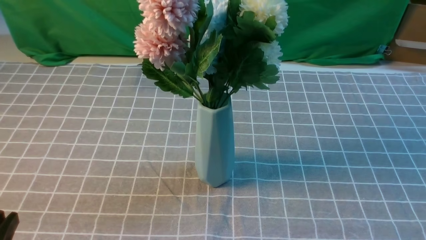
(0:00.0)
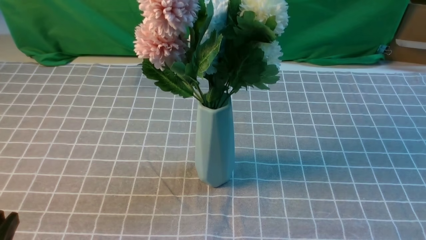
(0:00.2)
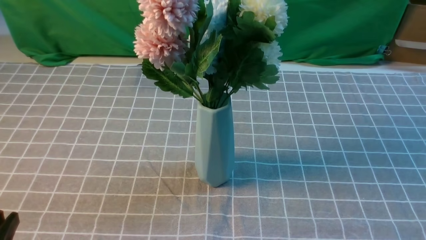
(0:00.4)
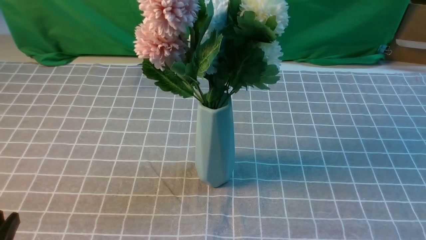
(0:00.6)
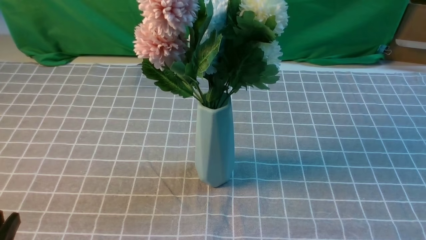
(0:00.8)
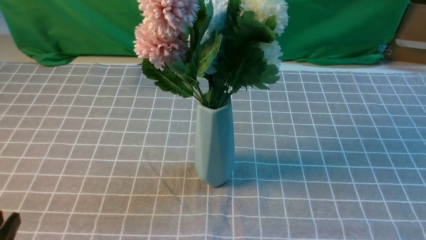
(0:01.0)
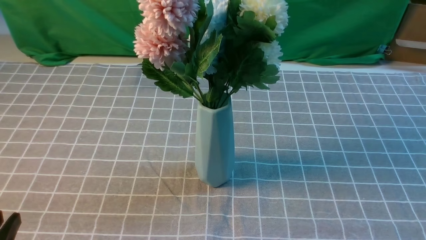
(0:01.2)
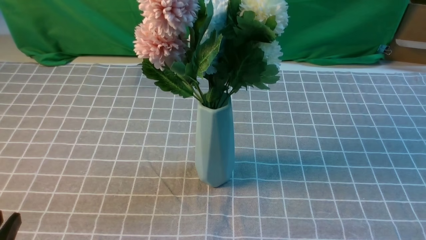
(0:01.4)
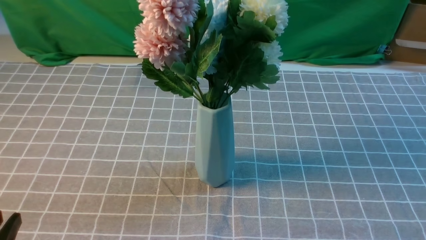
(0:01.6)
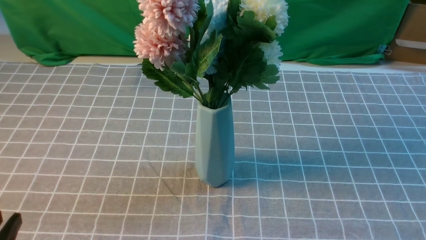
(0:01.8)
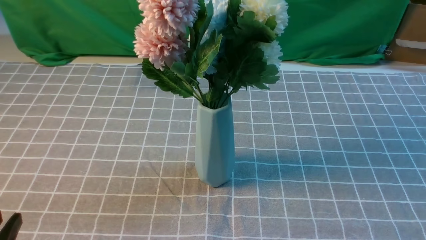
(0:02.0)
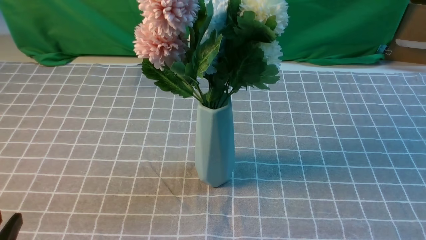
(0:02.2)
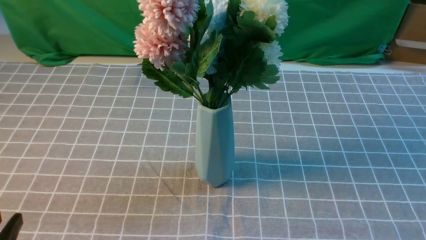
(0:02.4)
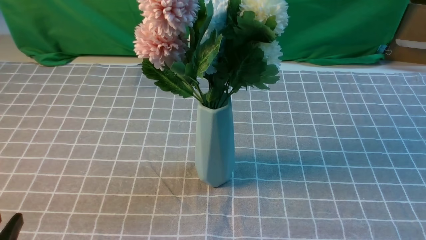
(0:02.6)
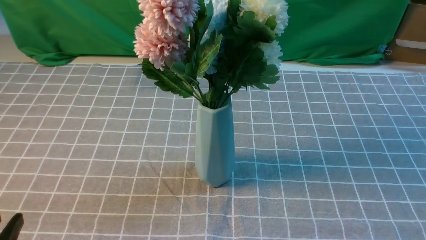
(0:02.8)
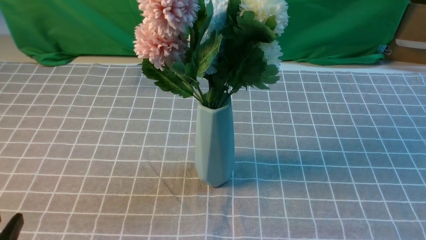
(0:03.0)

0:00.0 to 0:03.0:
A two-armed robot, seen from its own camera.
Task of the whole recording: insert the flowers into the vase on the table with the grey tablecloth.
0:01.6 to 0:03.0: The two grippers keep their place.

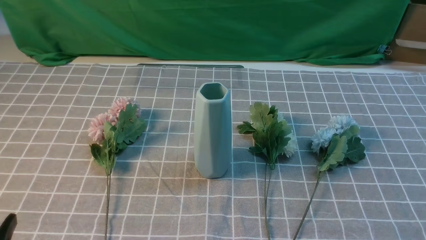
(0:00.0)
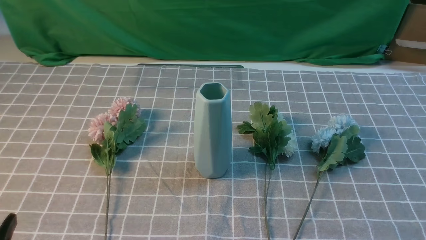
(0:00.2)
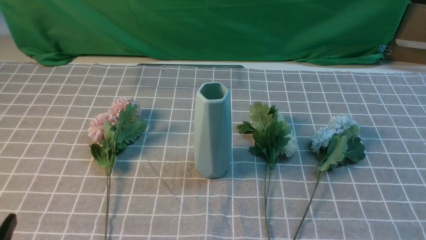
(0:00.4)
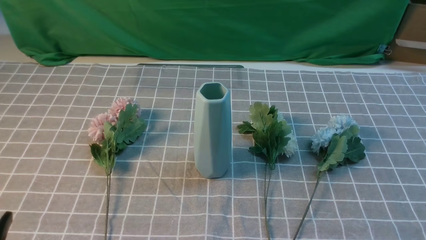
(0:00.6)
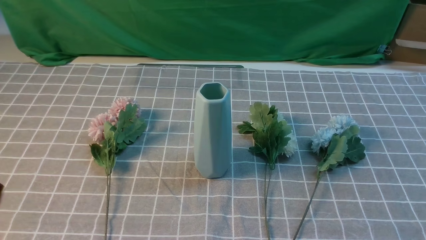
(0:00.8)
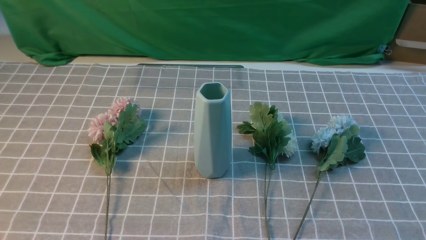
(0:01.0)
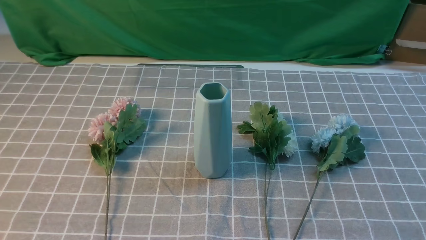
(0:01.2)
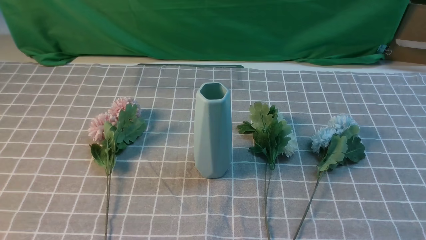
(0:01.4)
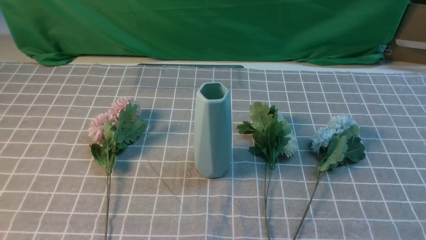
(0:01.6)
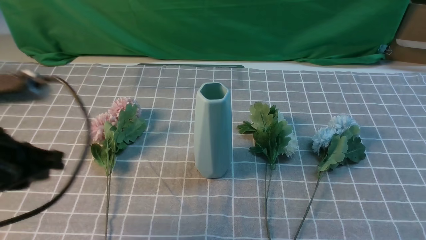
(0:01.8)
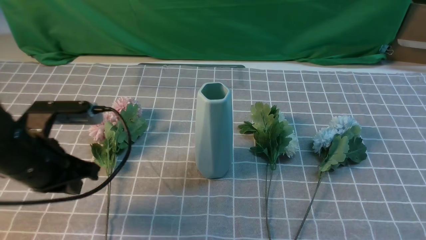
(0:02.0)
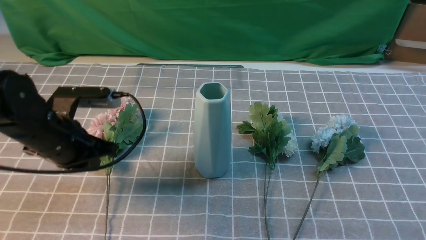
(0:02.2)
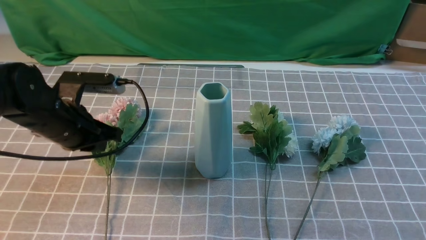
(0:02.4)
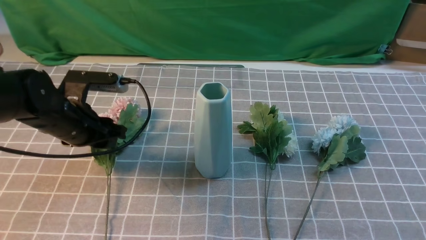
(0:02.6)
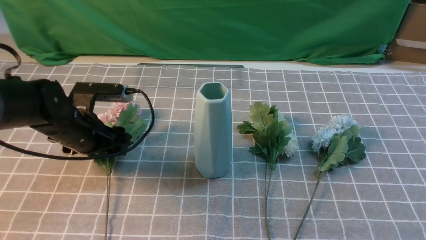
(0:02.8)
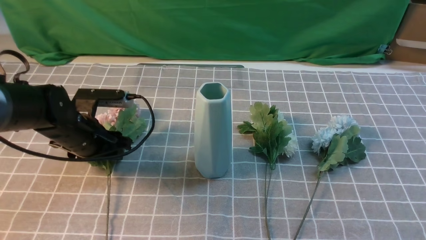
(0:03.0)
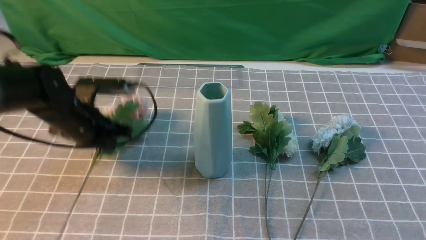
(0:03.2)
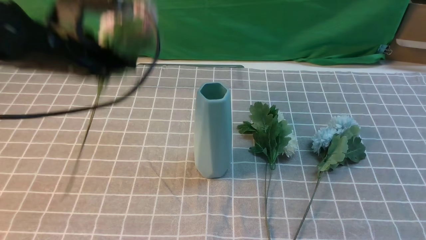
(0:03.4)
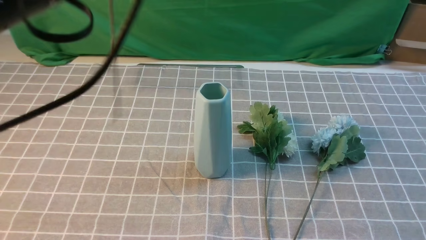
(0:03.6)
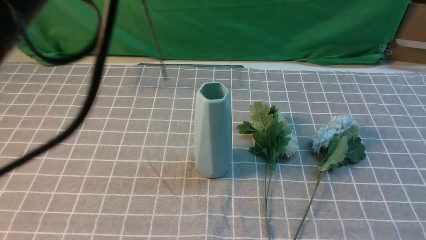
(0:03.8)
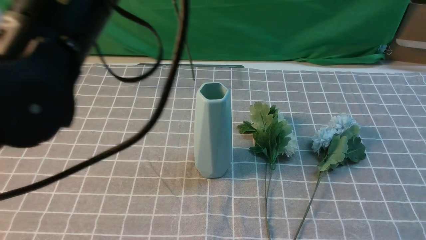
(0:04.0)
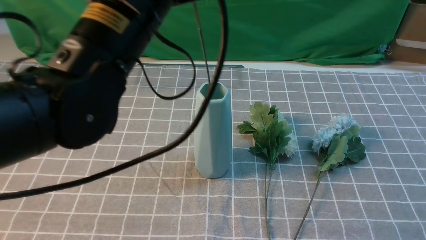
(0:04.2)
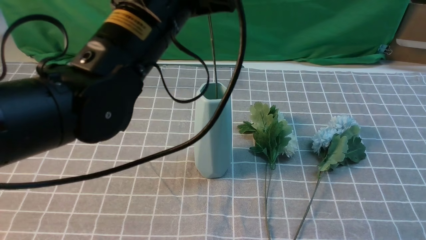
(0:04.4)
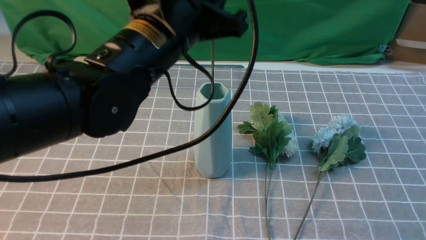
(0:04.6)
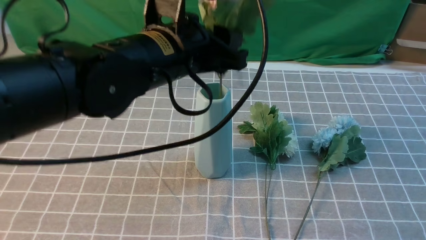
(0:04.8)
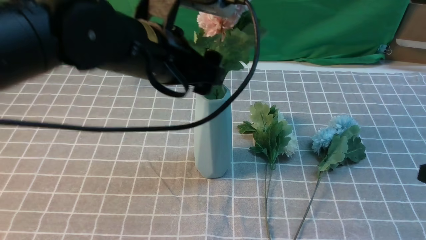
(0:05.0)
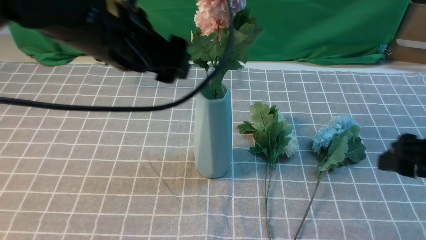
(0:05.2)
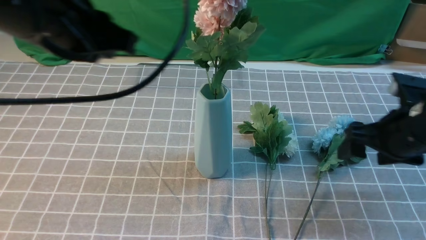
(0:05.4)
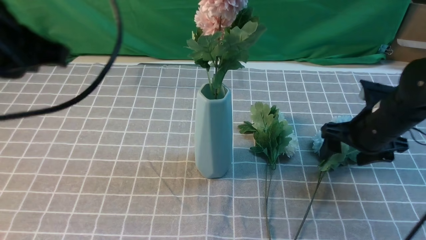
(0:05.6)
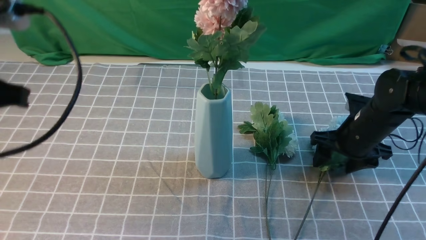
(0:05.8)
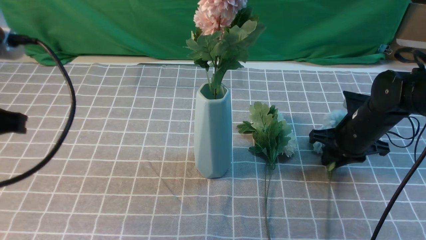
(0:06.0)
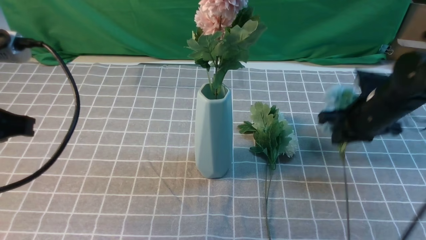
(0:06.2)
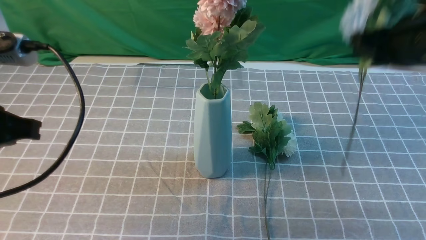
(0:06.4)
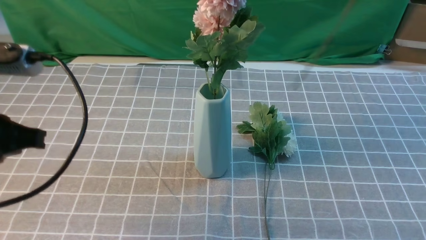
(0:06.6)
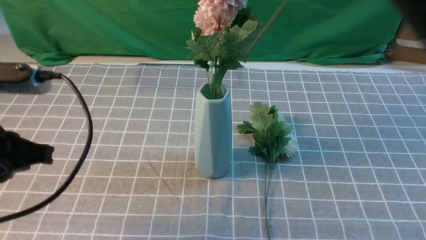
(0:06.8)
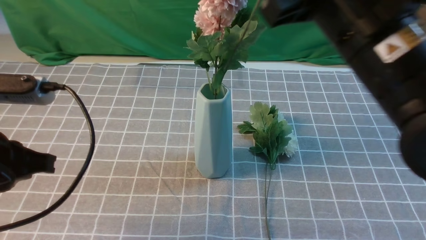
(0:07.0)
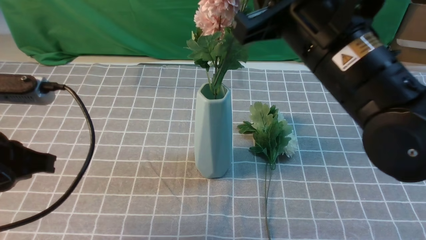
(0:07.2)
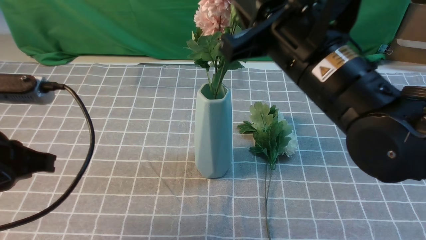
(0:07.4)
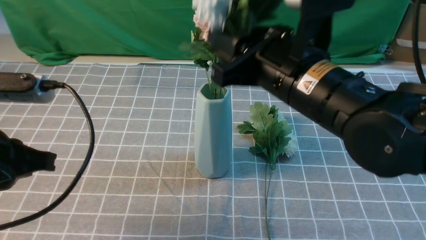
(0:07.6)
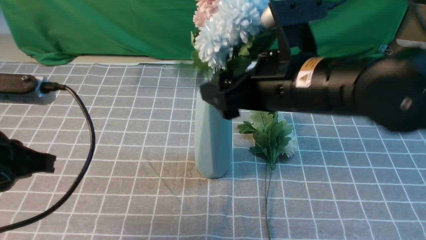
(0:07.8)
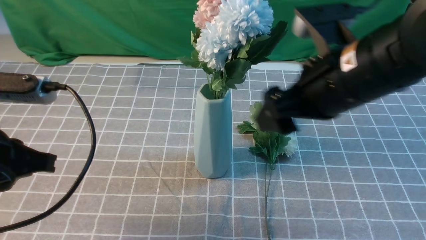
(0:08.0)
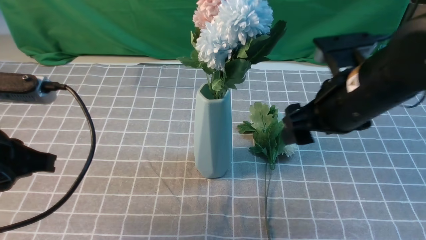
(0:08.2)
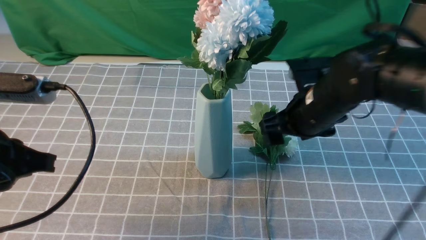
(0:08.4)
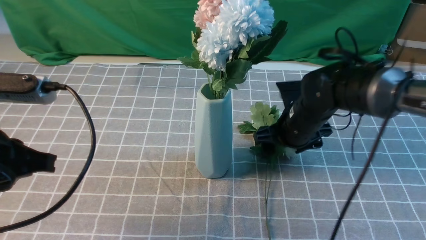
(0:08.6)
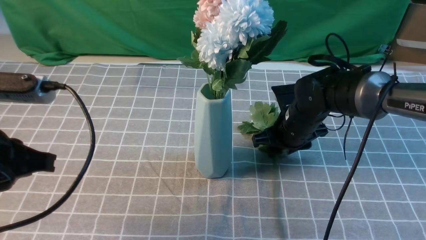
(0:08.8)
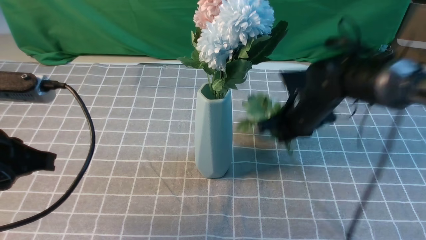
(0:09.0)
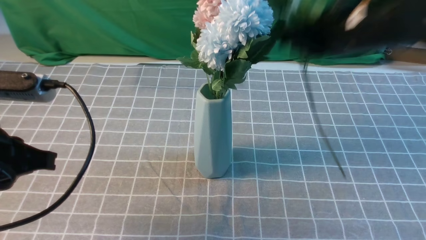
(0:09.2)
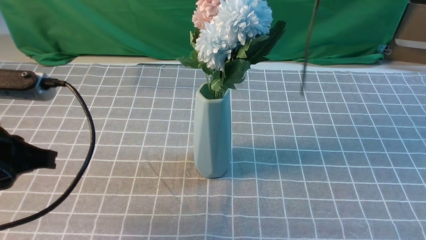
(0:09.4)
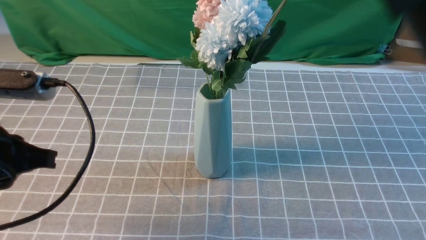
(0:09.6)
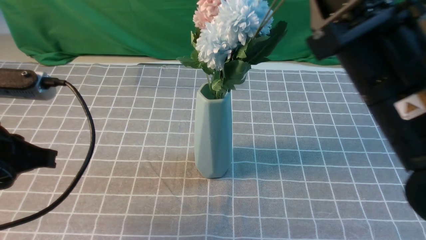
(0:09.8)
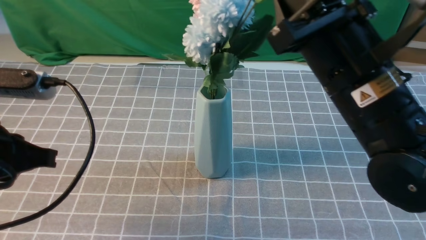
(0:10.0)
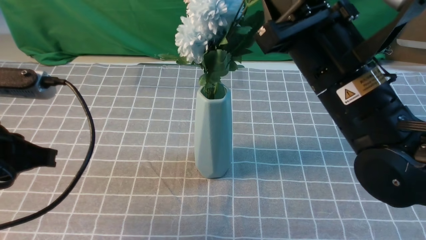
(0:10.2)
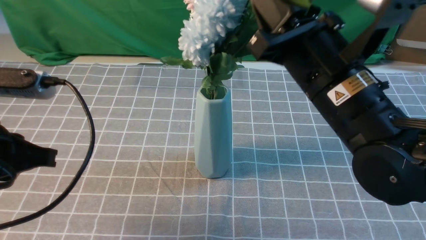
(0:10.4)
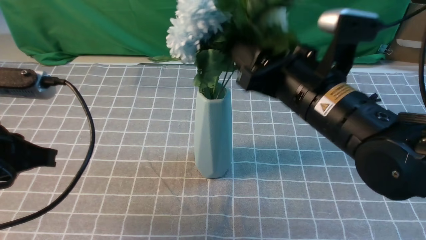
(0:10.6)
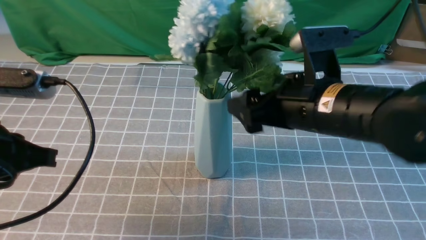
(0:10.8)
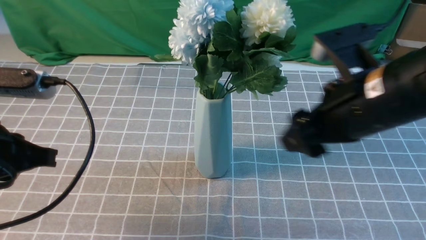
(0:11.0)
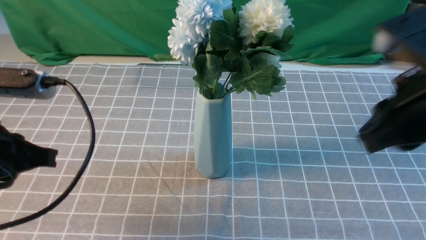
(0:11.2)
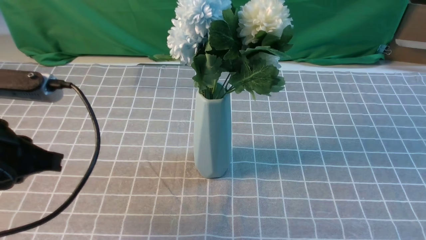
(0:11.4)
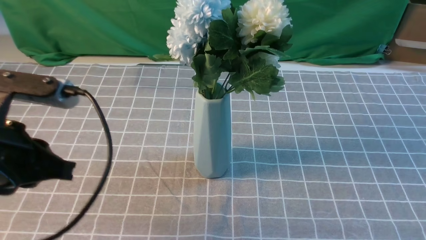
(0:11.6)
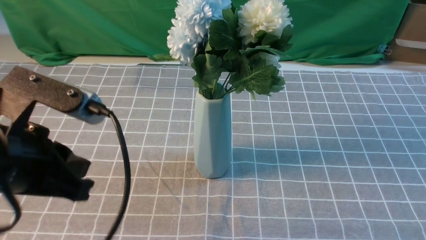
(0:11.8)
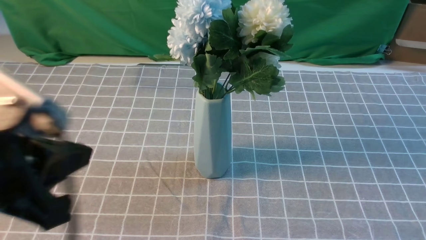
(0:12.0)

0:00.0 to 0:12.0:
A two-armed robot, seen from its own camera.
Task of the whole recording: insert the flowers into the vase on the table with the grey tablecloth.
Step, 0:00.0 to 0:03.0: use the left arm to grab a bunch of fresh flowers.
Step, 0:03.2 to 0:05.0: use the left arm to insert the flowers into the vase.
Step, 0:05.2 to 0:06.0: use the right arm to grab a bunch of fresh flowers.
Step, 0:06.2 to 0:07.8: use the right arm to insert the flowers into the vase.
Step, 0:08.0 to 0:08.8: use the right arm to grab a bunch of fresh flowers.
Step, 0:09.0 to 0:10.8: use the right arm to insert the flowers into the vase.
0:01.6 to 0:03.0: The left gripper shifts roughly 25 cm forward and downward, and opens up. Meanwhile the right gripper is displaced forward and upward by approximately 10 cm.
0:03.0 to 0:04.4: The left gripper is displaced upward and to the right by some 25 cm, and closes its fingers.
0:04.4 to 0:06.0: The left gripper shifts some 20 cm to the left and backward, and opens, then closes again, while the right gripper is displaced forward and downward by approximately 25 cm, and opens, then closes again.
0:06.0 to 0:07.6: The right gripper shifts some 25 cm upward, to the left and backward, while the left gripper moves some 5 cm.
0:07.6 to 0:09.0: The right gripper shifts some 15 cm forward, downward and to the right, and closes its fingers.
0:09.0 to 0:10.4: The right gripper is displaced backward and upward by about 15 cm.
0:10.4 to 0:12.0: The left gripper travels backward by some 10 cm, while the right gripper travels backward and to the right by approximately 30 cm, and opens and closes again.

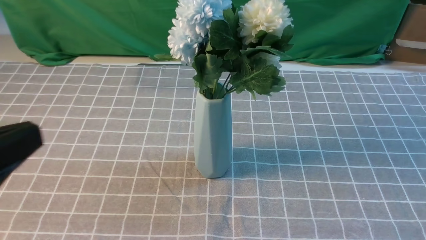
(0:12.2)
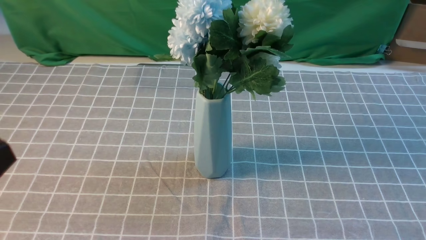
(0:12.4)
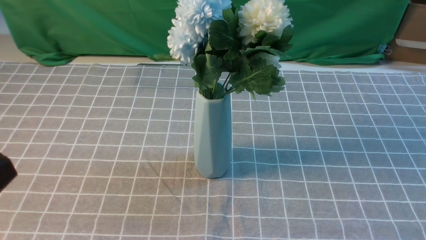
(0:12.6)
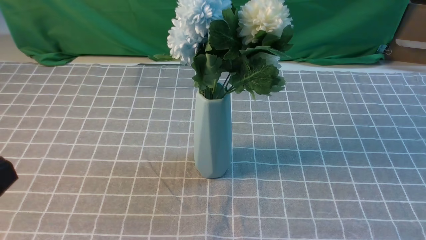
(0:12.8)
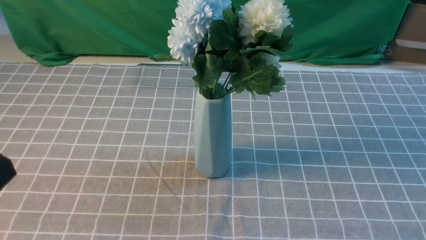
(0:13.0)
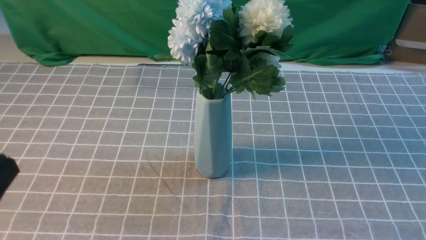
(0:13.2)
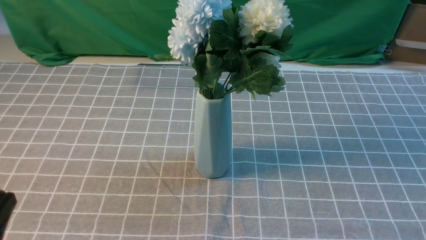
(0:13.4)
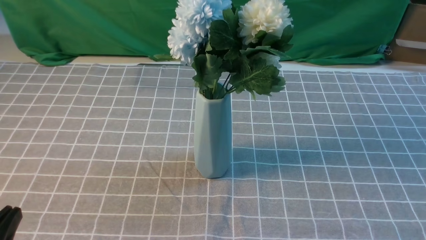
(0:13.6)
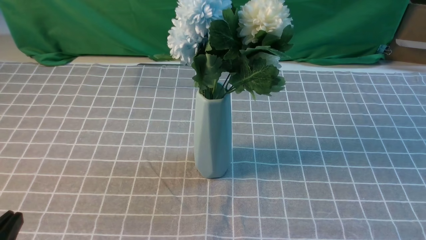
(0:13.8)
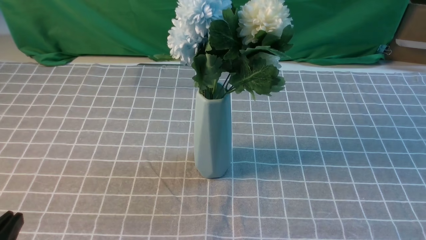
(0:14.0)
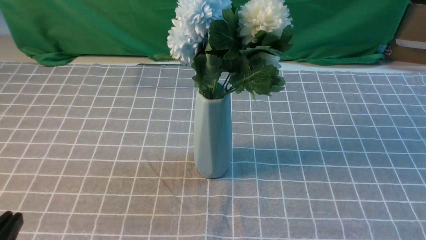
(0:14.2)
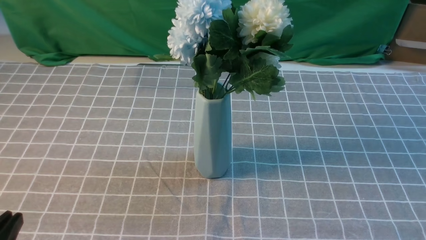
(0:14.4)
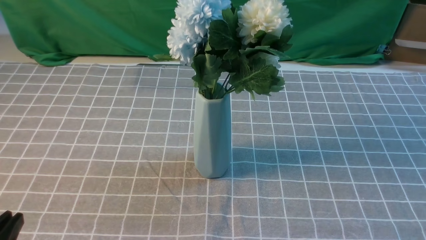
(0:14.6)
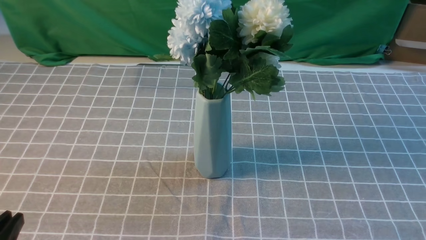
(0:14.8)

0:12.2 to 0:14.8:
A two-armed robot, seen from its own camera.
Task of the whole recording: insert the flowers into the vase on the table with the grey tablecloth.
0:12.2 to 0:13.4: The left gripper heads downward, covering approximately 15 cm.
